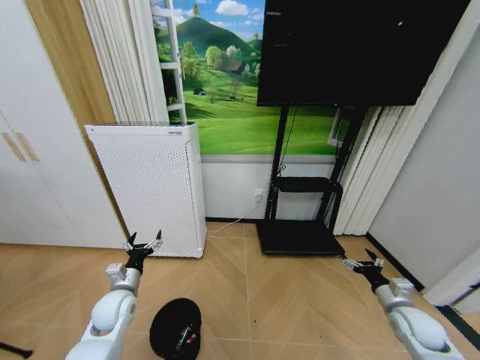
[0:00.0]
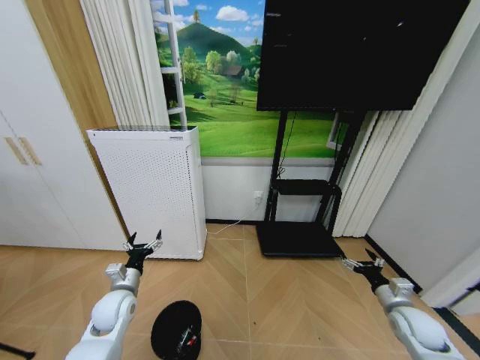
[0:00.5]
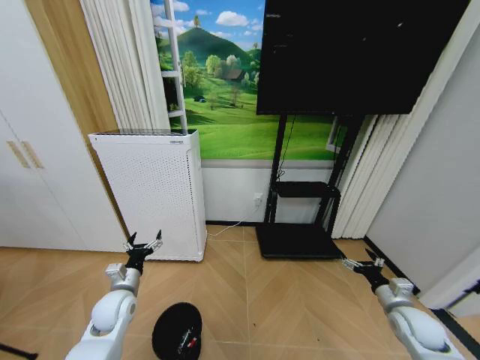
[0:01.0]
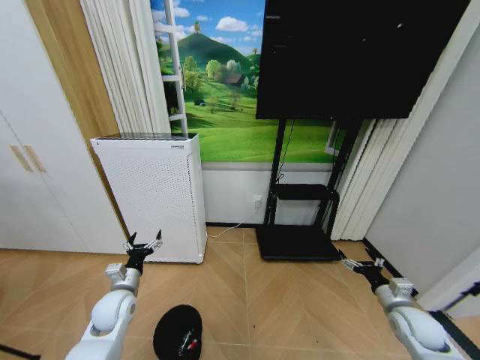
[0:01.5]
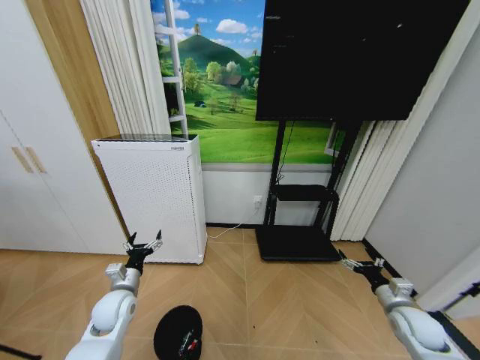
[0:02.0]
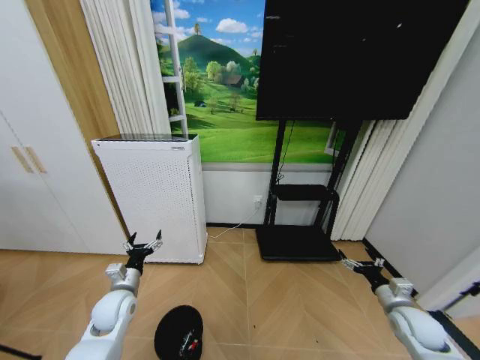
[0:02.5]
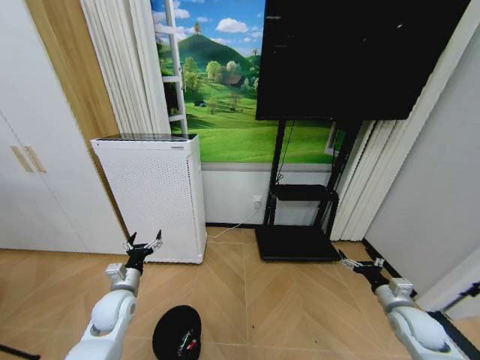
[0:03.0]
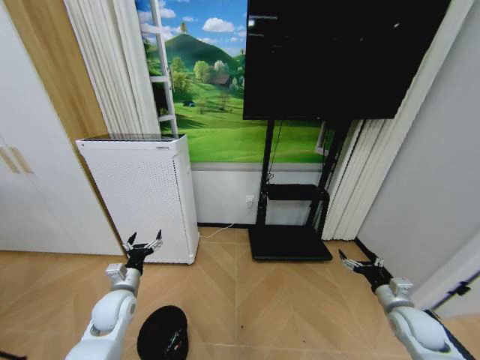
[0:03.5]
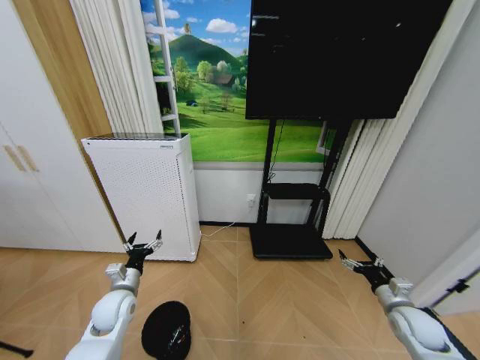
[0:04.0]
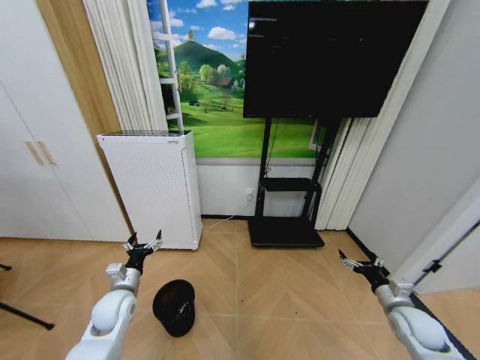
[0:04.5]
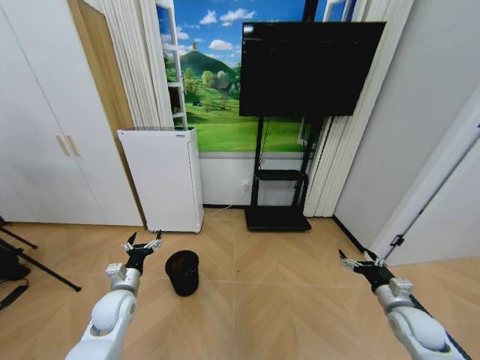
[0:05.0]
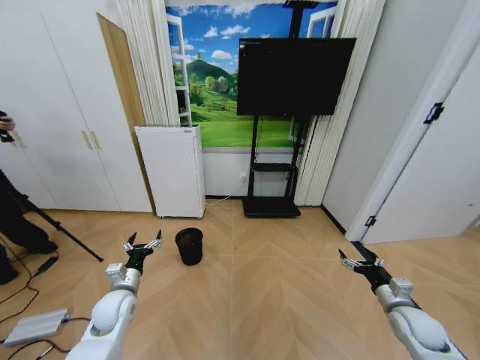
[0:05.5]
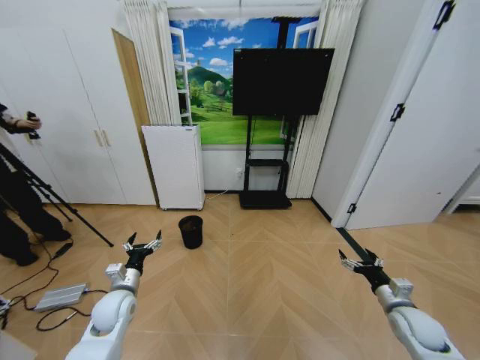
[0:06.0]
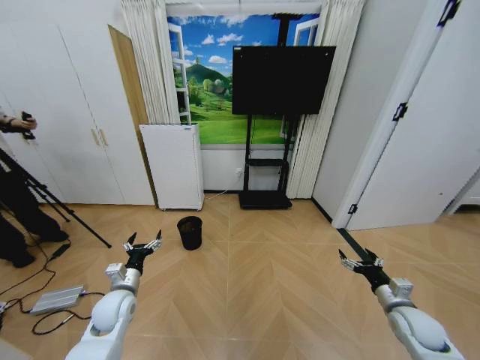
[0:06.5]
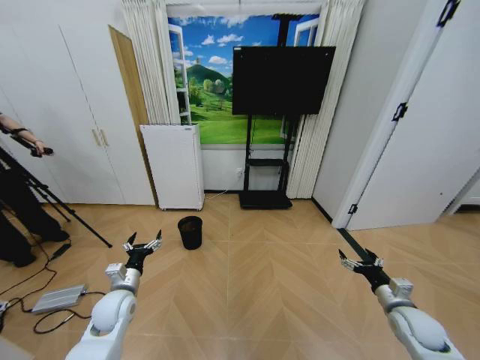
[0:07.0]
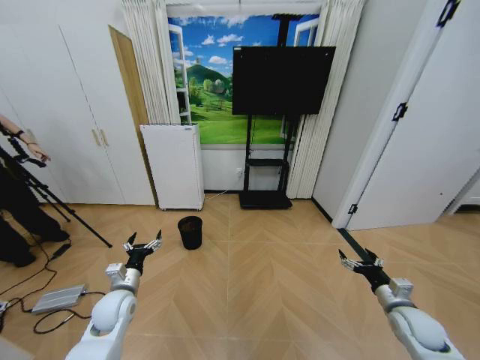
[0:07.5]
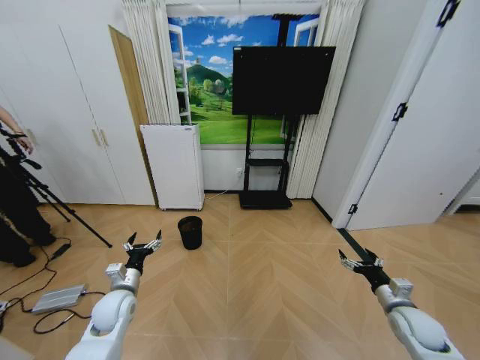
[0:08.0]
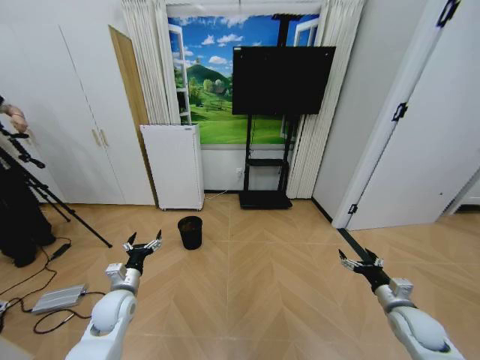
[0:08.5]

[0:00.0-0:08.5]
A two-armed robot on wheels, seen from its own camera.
Task of the whole recording: Pick up the trash bin and place the garbage on the floor into it.
0:00.0 to 0:02.0: The two grippers keep their place.
0:06.5 to 0:08.5: Both grippers stay about where they are.

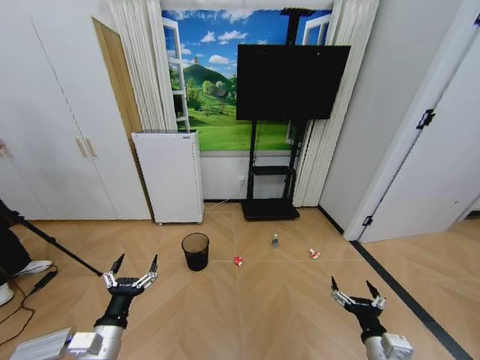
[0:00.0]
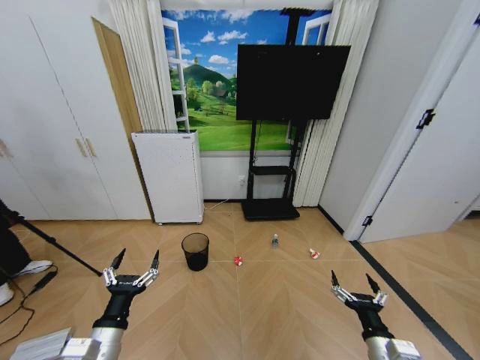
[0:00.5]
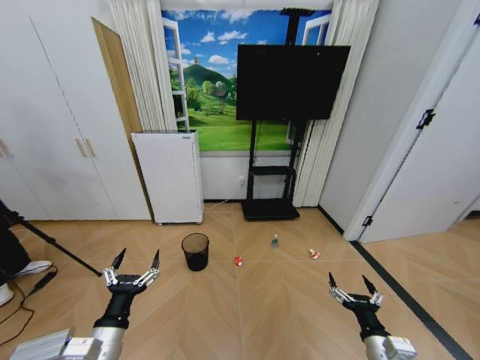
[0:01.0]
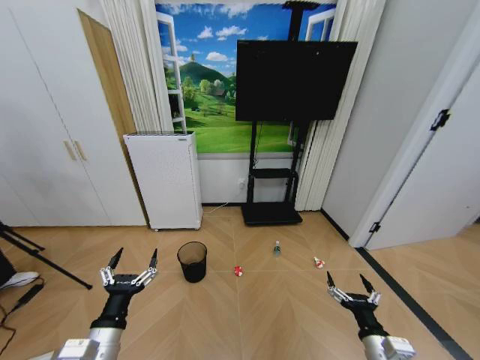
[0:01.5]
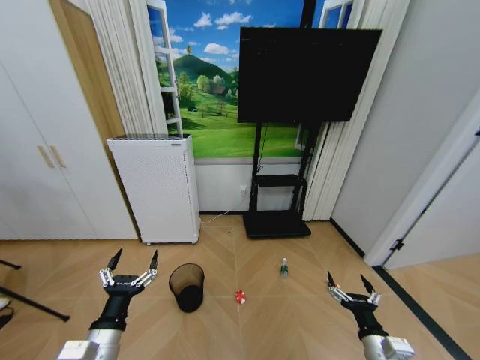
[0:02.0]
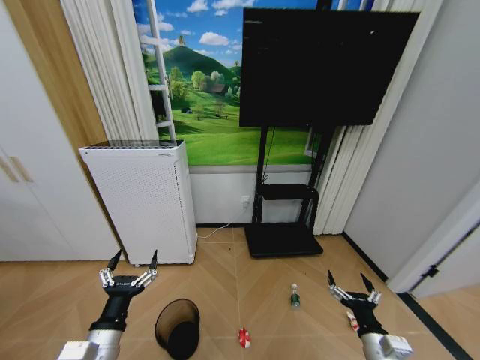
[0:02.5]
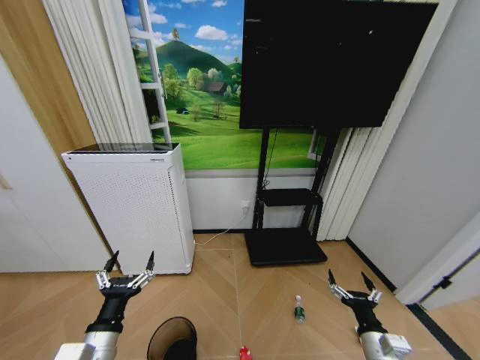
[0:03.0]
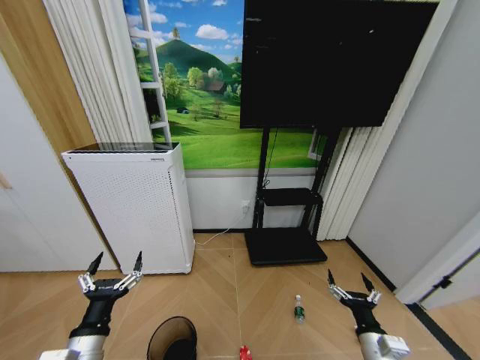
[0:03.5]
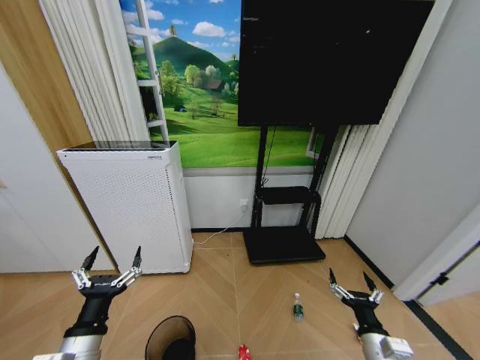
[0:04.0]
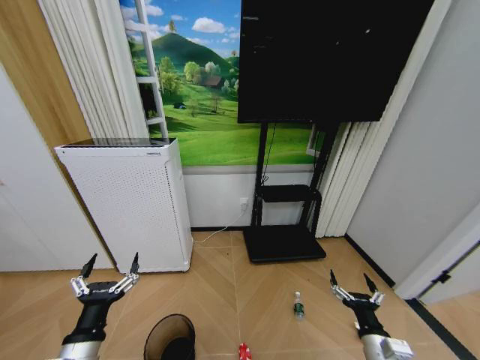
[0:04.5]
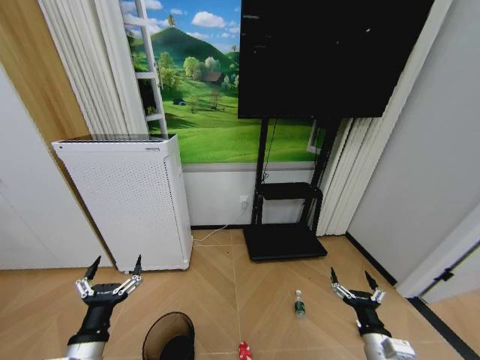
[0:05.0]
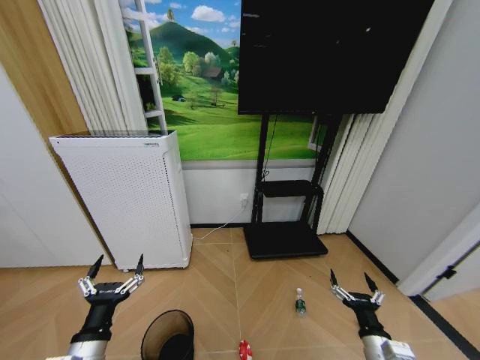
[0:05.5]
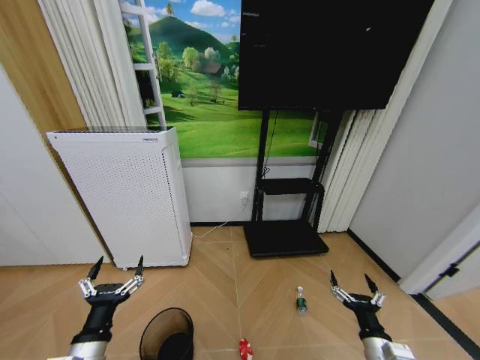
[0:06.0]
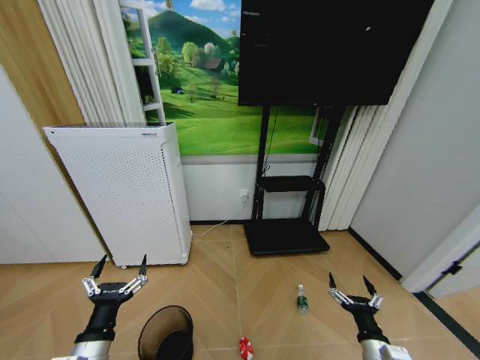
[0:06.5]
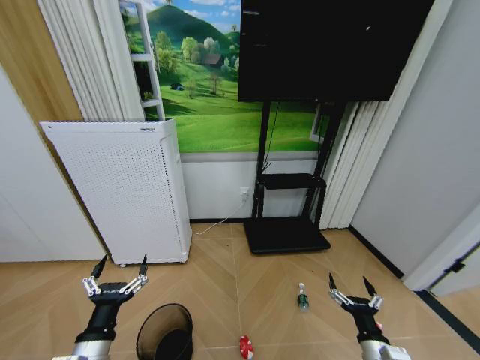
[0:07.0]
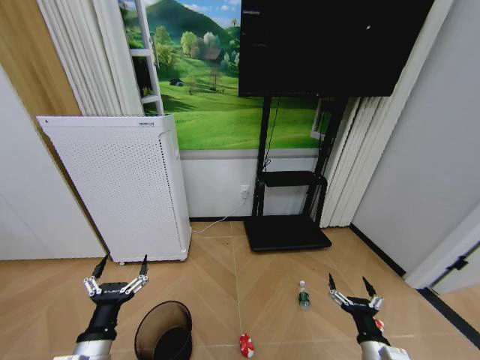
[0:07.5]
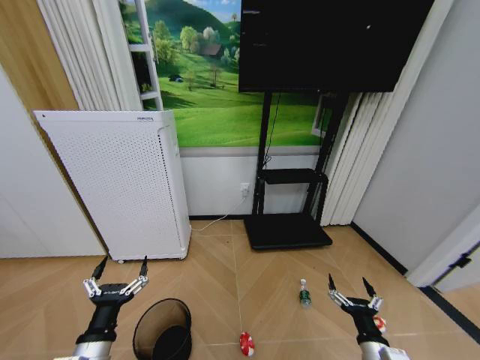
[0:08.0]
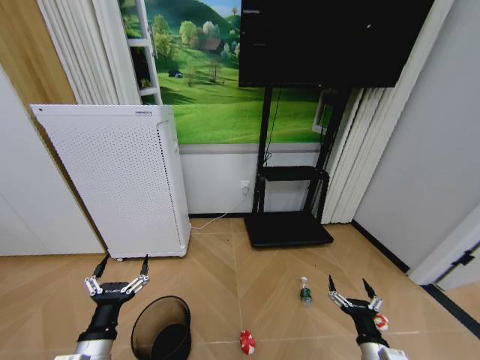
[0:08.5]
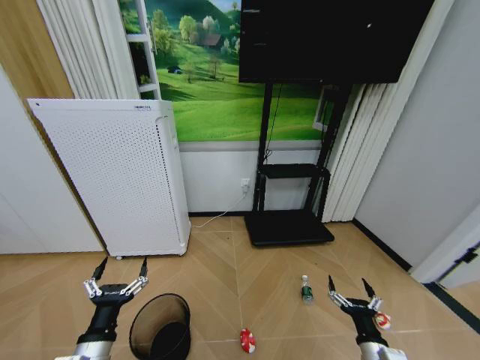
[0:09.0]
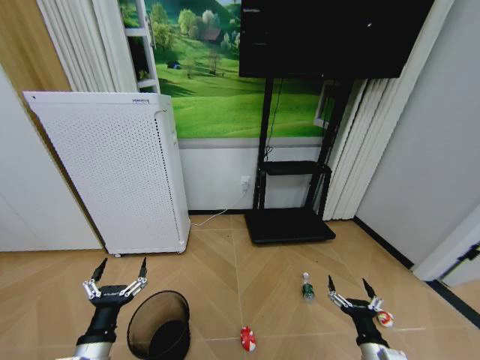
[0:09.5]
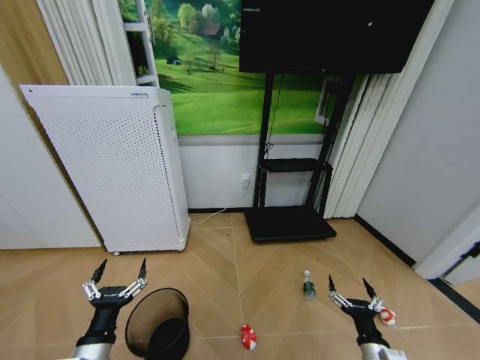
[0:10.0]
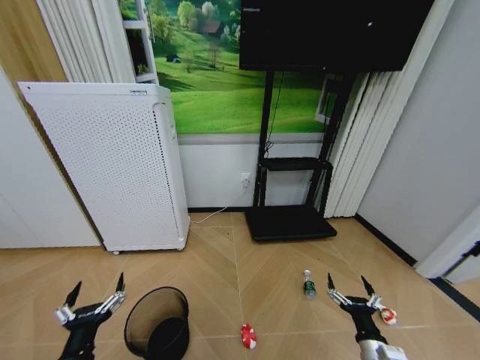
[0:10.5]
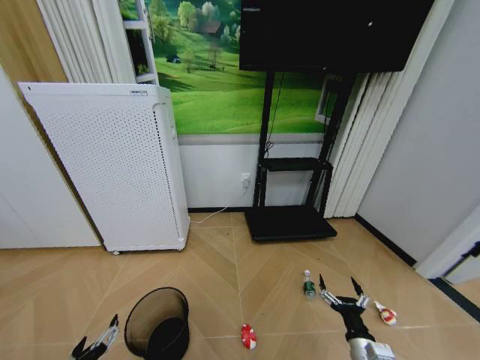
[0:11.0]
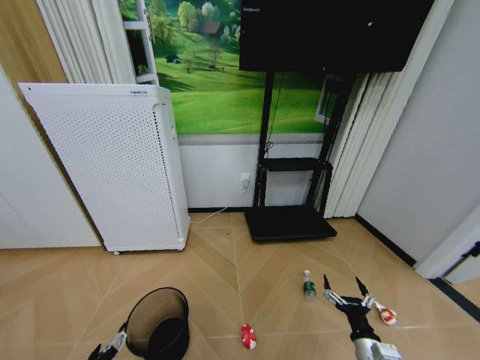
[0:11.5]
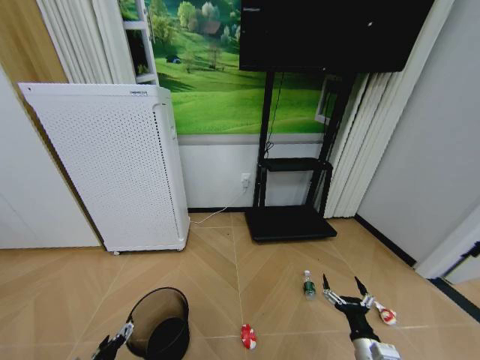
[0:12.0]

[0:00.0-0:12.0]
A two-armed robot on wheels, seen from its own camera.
Task of the whole recording: Pick up the trash bin and place the garbage on the floor into it.
0:04.0 to 0:06.0: There are only small adjustments of the grippers.
0:06.0 to 0:08.0: Both grippers stay put.
0:08.0 to 0:10.0: Both grippers stay about where they are.
0:10.0 to 0:12.0: The left gripper travels downward by roughly 10 cm.

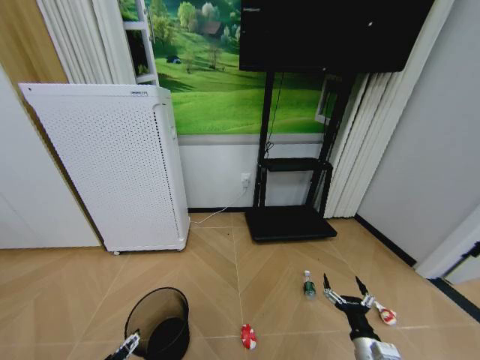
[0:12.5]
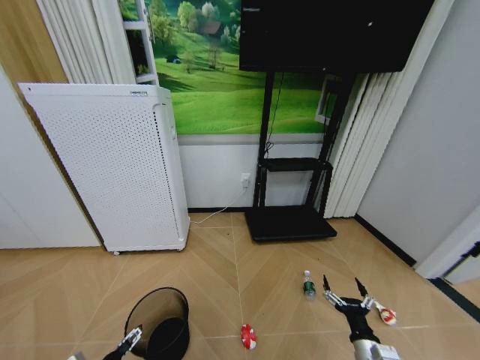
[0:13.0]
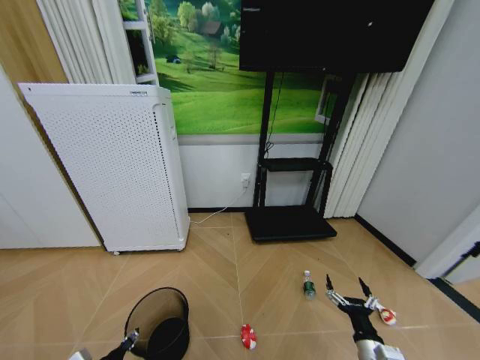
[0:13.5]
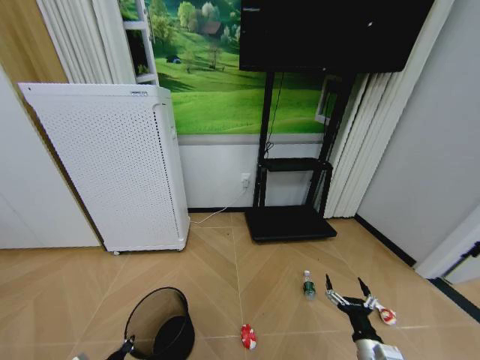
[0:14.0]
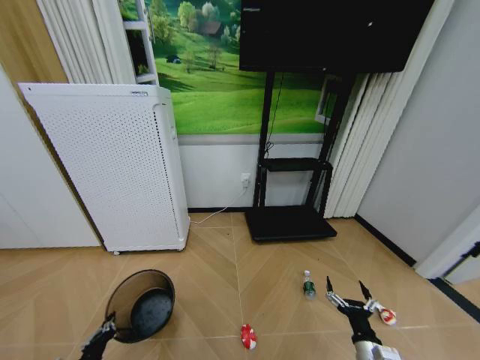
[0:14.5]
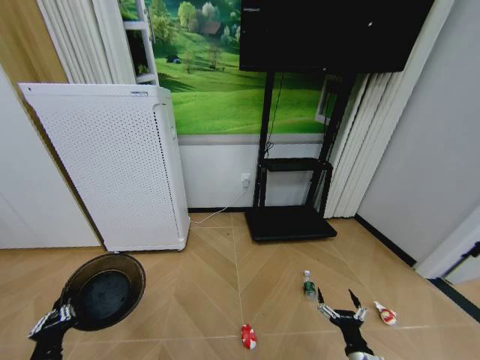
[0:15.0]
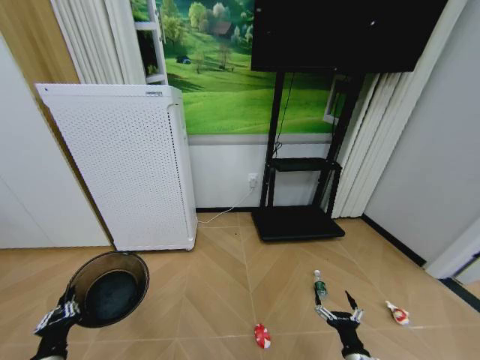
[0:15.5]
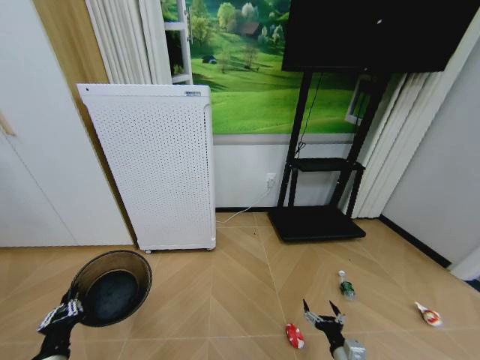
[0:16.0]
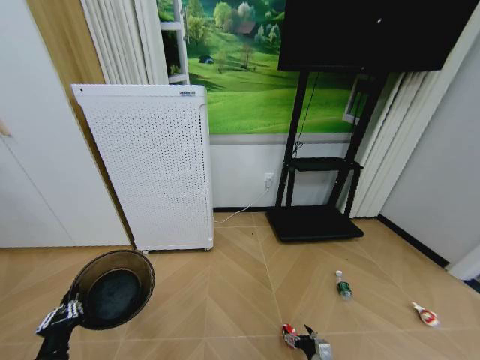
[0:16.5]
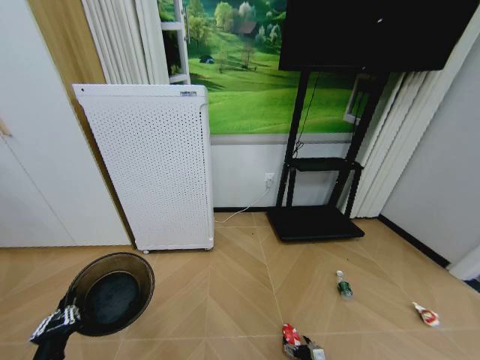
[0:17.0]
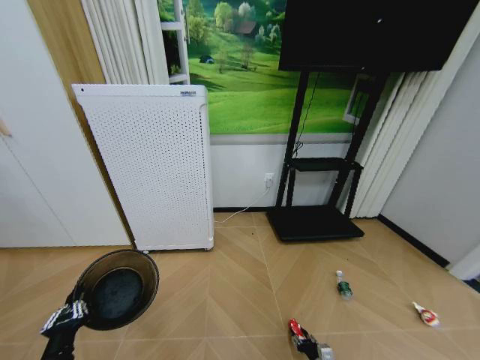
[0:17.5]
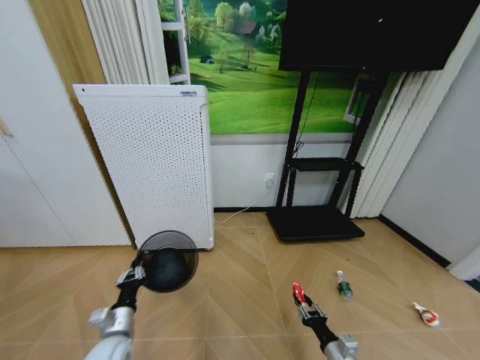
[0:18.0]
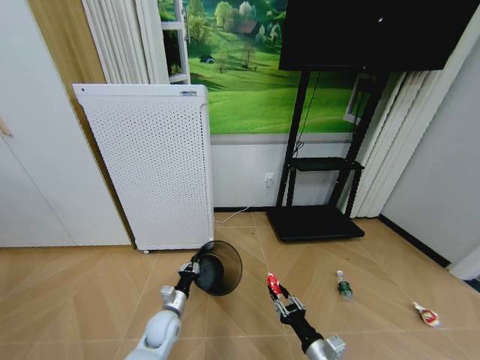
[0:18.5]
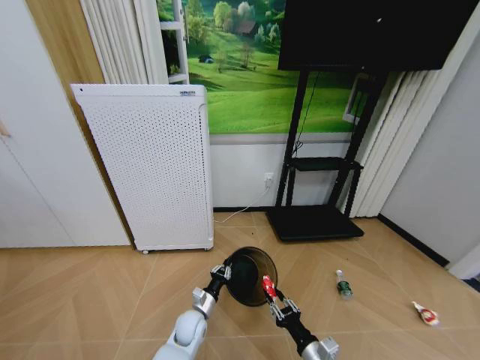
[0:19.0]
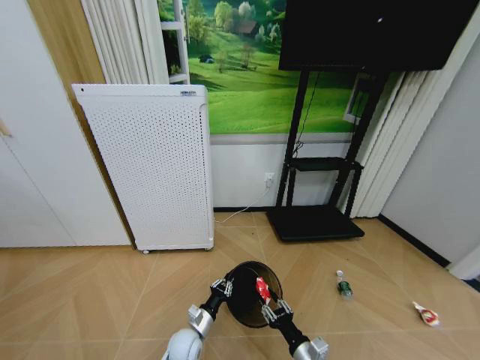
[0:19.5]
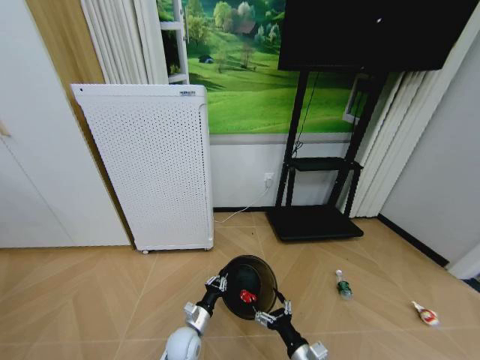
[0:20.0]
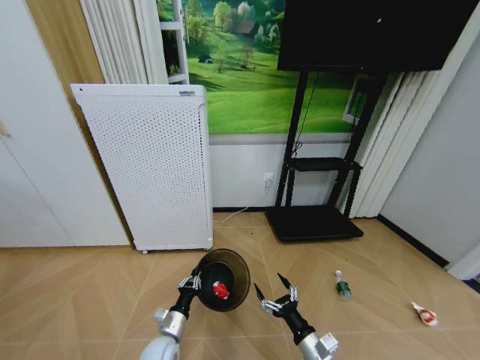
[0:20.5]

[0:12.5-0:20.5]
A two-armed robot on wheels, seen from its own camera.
Task of the whole recording: Pick up the trash bin and place the garbage on the floor into it.
0:12.5 to 0:14.5: The left gripper closes.
0:14.5 to 0:16.5: The right gripper travels downward by about 15 cm.
0:16.5 to 0:18.5: The right gripper is displaced upward by approximately 15 cm, and closes its fingers; the left gripper goes approximately 25 cm forward, to the right and downward.
0:18.5 to 0:20.5: The right gripper opens up. Meanwhile the left gripper goes about 5 cm backward, and moves some 10 cm to the right and comes back.
